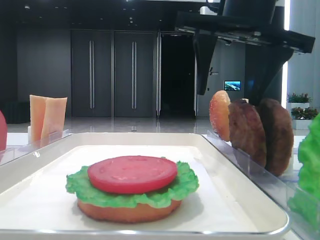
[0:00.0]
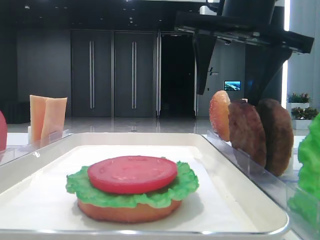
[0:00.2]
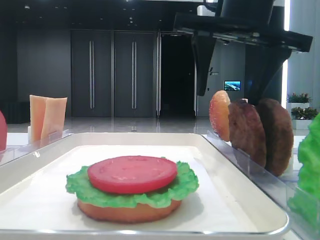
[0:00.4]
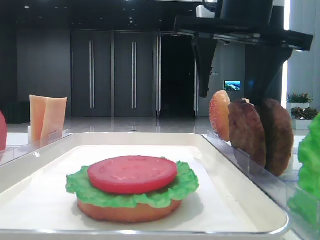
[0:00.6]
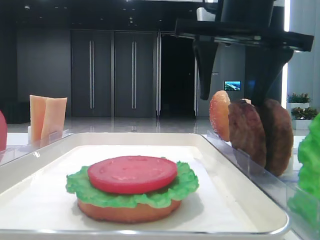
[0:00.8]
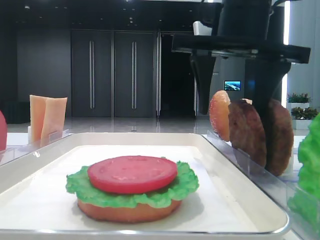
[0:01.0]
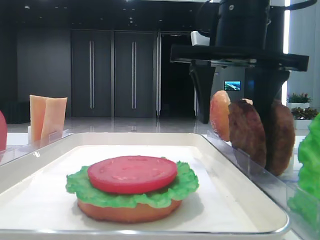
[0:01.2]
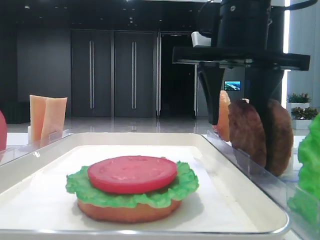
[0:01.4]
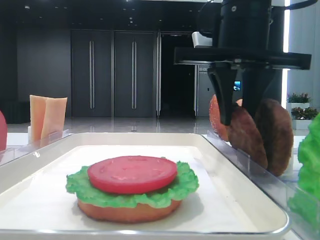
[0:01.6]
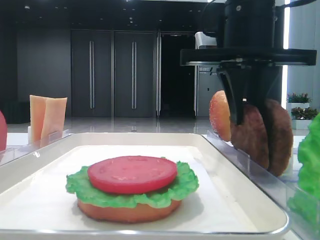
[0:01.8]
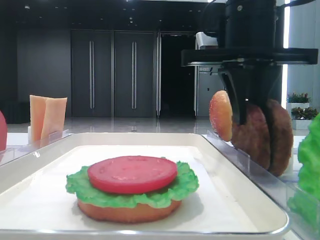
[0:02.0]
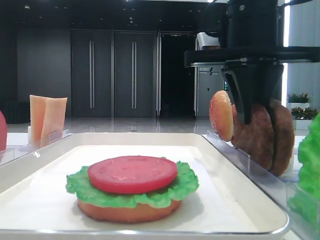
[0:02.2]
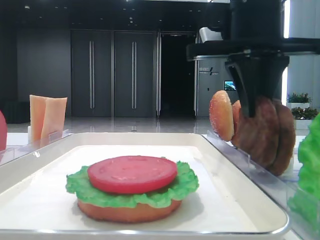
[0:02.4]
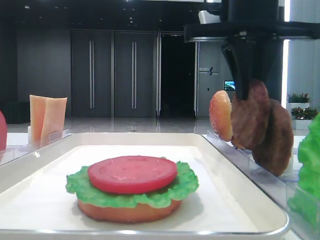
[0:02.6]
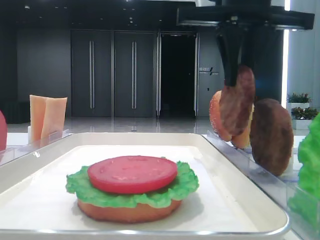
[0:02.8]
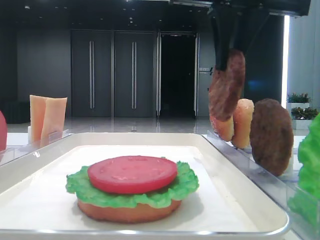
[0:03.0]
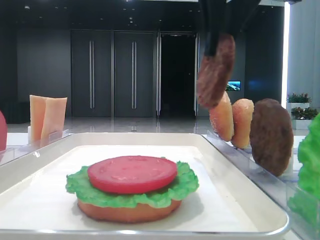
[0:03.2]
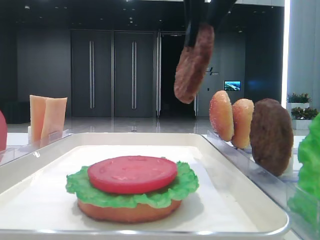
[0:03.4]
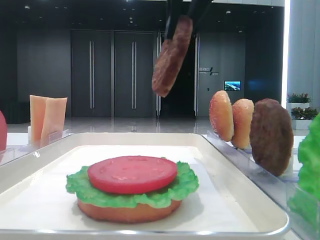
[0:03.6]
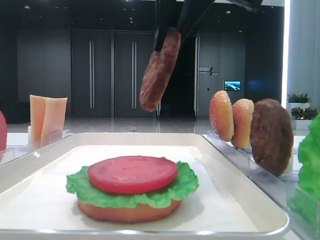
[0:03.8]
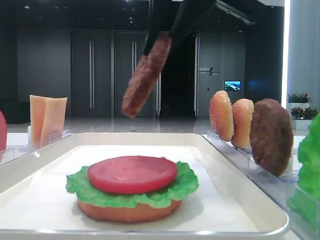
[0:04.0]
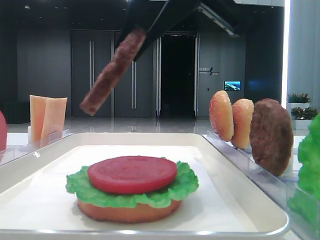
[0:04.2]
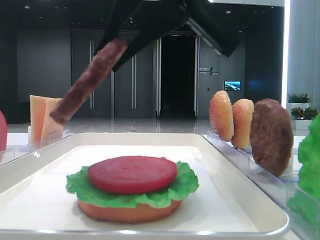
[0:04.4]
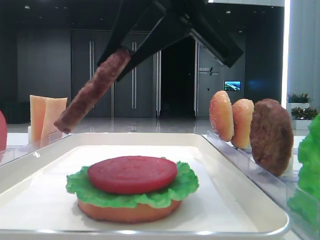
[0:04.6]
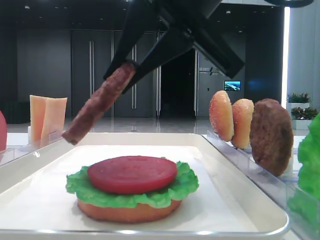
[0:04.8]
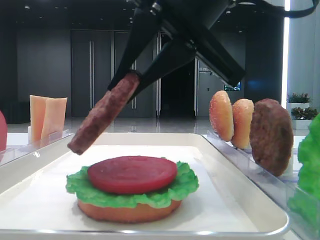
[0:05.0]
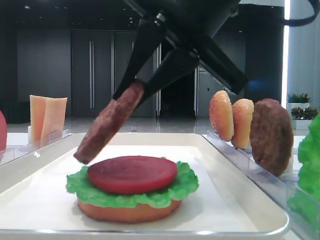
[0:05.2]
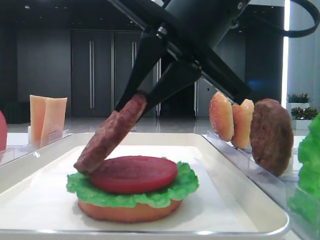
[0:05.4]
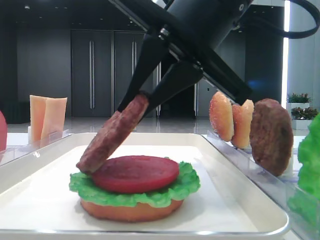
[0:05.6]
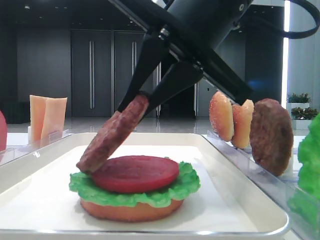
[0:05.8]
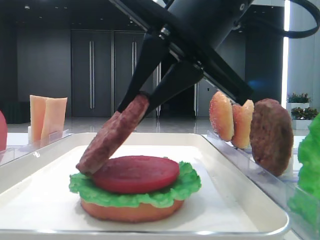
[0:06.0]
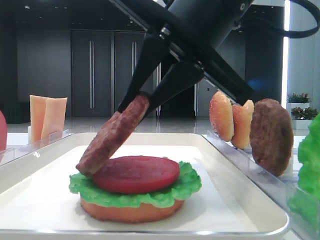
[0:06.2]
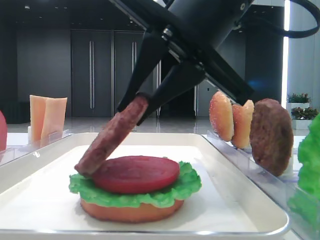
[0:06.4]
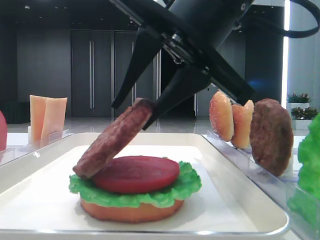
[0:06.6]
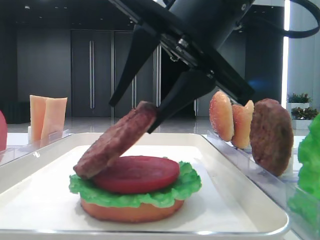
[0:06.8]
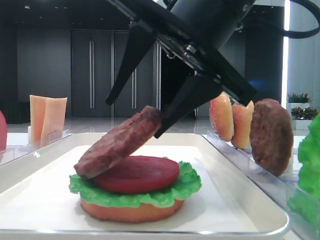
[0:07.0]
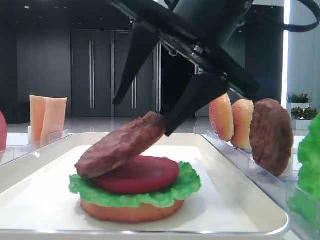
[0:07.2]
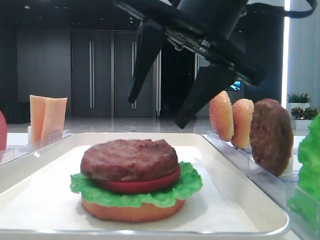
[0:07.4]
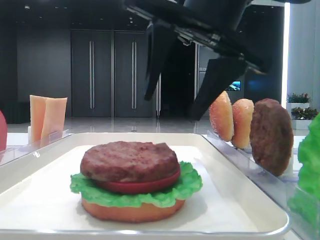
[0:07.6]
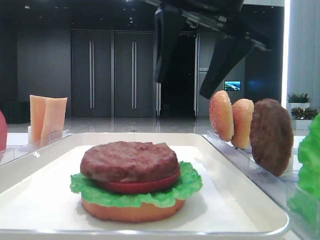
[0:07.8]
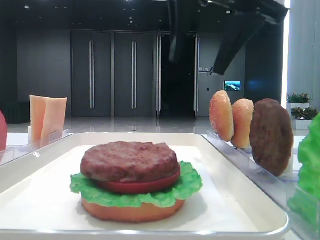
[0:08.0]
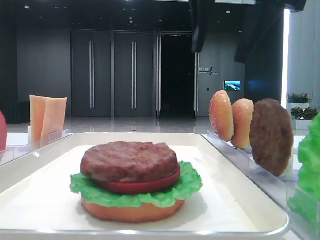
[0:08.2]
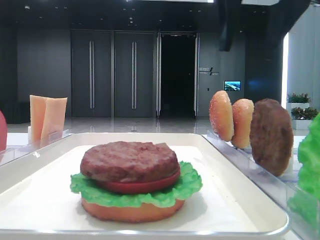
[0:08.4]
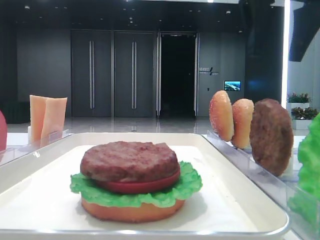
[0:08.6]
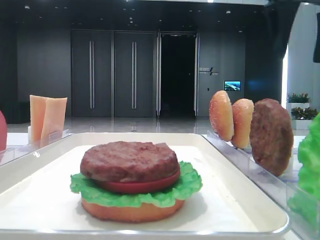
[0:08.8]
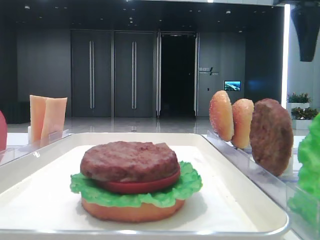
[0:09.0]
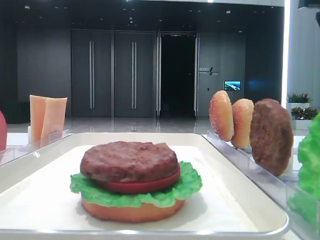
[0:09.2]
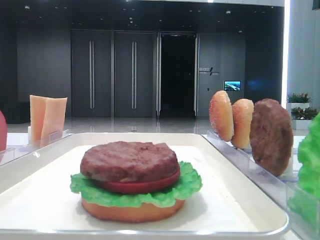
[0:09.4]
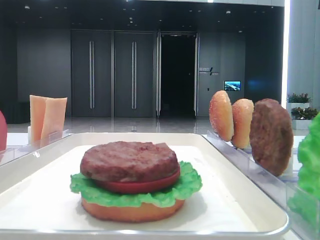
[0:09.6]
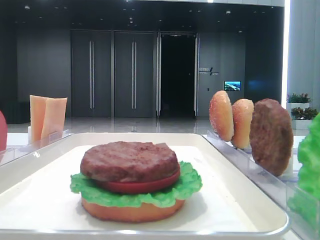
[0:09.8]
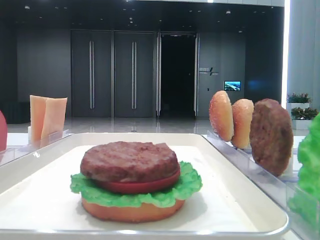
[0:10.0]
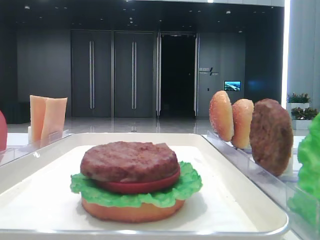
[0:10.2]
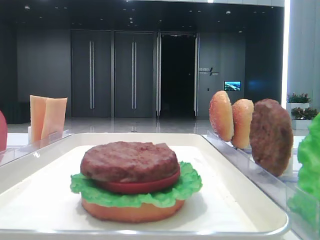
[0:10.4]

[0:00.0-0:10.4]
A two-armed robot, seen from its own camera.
Step, 0:00.0 to 0:02.0: Grab the patty with the right hand.
Step, 0:02.4 to 0:07.2: Place the patty on the tomato slice with the right hand.
0:00.0 to 0:01.4: The grippers stay close to where they were, moving slightly.
0:01.4 to 0:03.0: The right gripper goes roughly 5 cm upward, and closes up.
0:03.0 to 0:04.4: The right gripper travels backward and to the left by roughly 10 cm.
0:04.4 to 0:06.0: The right gripper shifts by about 5 cm.
0:06.0 to 0:07.4: The right gripper opens up.
0:07.4 to 0:09.0: The right gripper travels to the right, forward and upward by some 20 cm.
0:09.0 to 0:10.4: The right gripper goes approximately 10 cm backward and to the right.

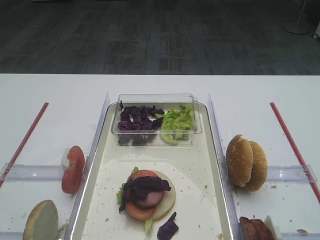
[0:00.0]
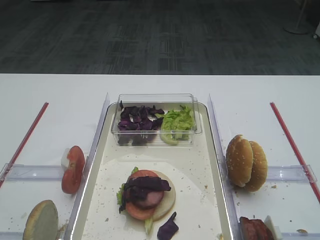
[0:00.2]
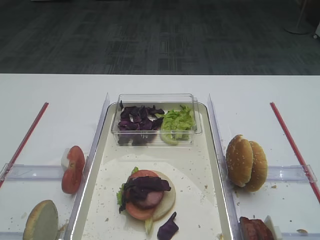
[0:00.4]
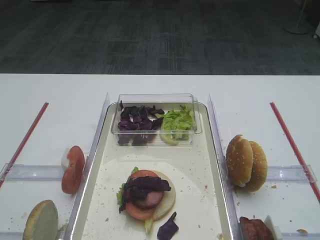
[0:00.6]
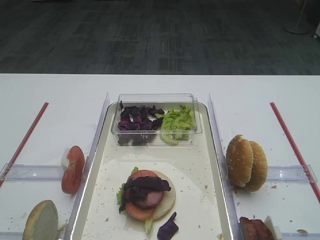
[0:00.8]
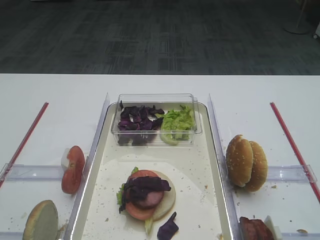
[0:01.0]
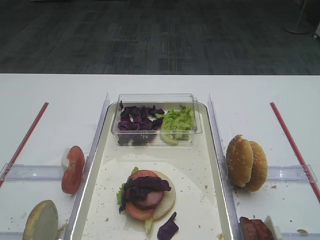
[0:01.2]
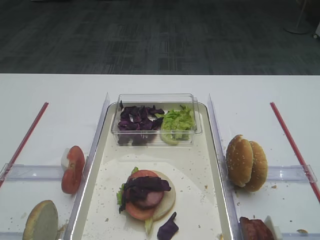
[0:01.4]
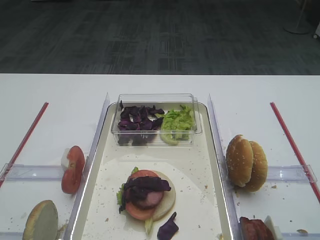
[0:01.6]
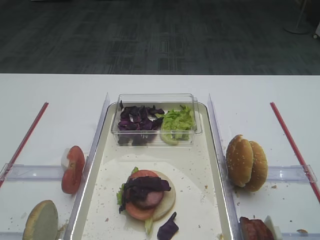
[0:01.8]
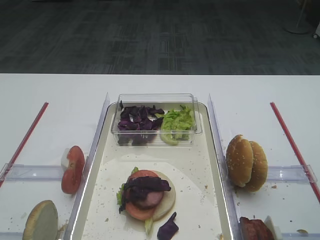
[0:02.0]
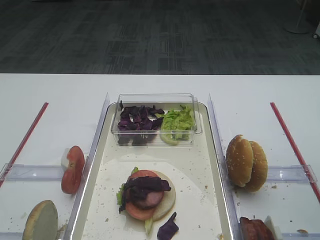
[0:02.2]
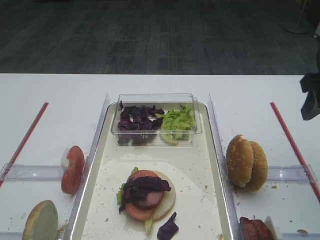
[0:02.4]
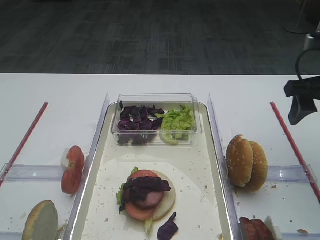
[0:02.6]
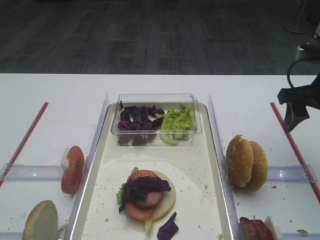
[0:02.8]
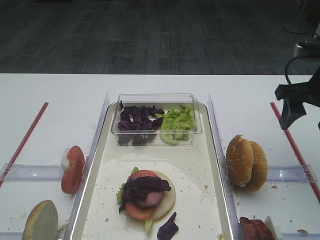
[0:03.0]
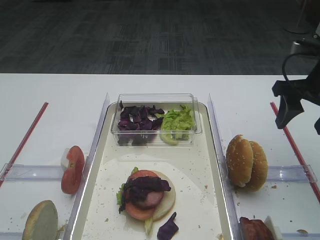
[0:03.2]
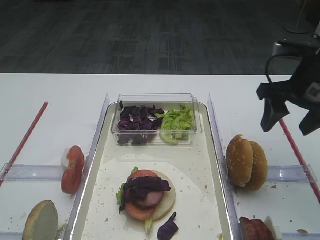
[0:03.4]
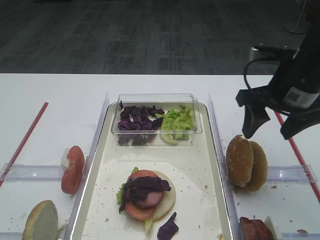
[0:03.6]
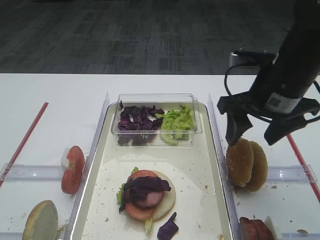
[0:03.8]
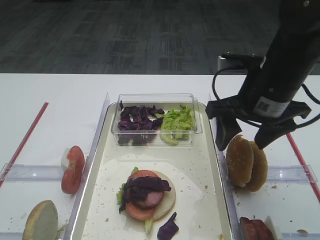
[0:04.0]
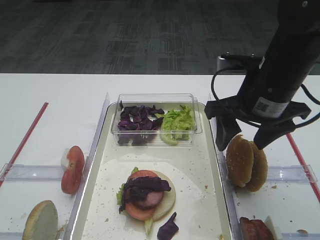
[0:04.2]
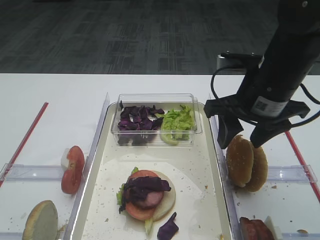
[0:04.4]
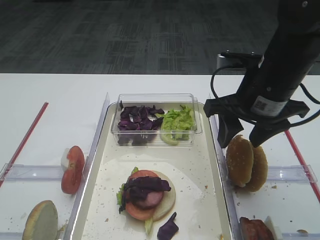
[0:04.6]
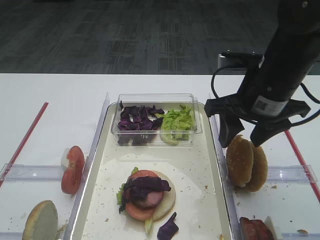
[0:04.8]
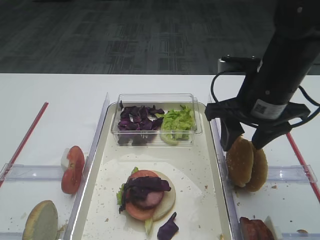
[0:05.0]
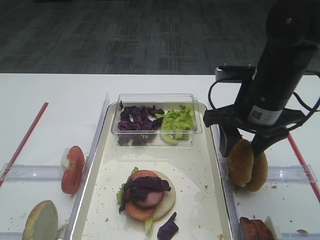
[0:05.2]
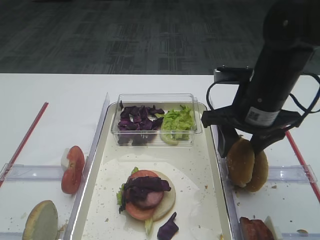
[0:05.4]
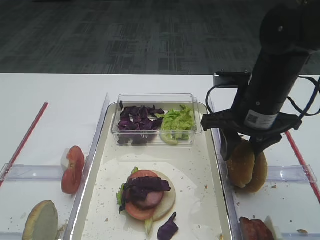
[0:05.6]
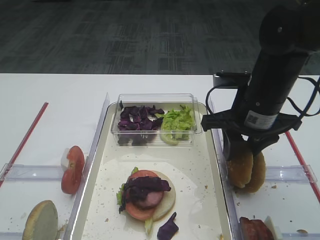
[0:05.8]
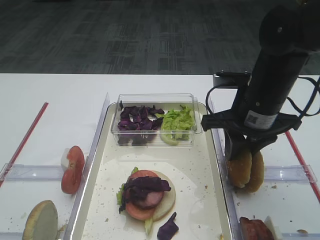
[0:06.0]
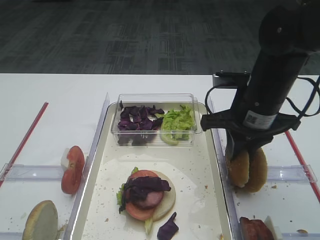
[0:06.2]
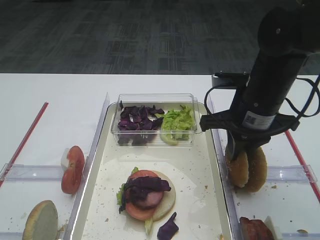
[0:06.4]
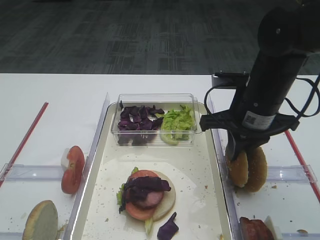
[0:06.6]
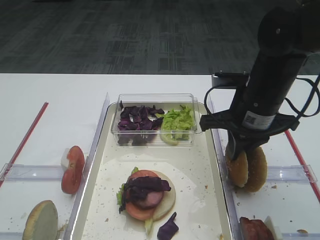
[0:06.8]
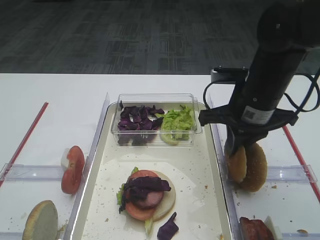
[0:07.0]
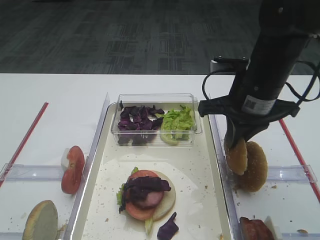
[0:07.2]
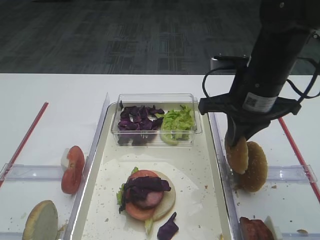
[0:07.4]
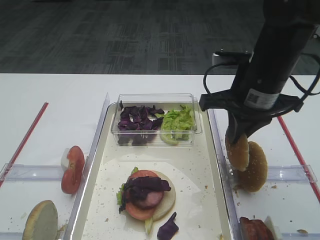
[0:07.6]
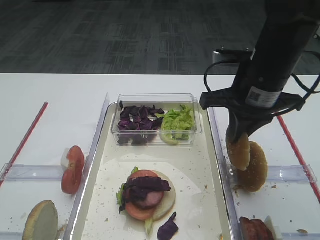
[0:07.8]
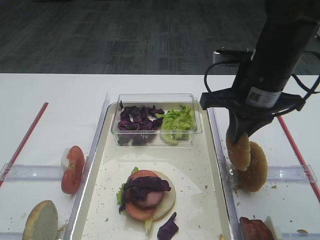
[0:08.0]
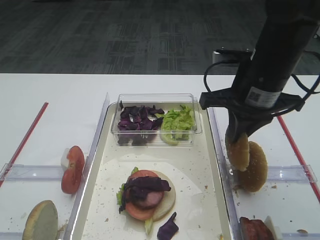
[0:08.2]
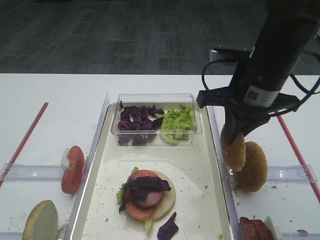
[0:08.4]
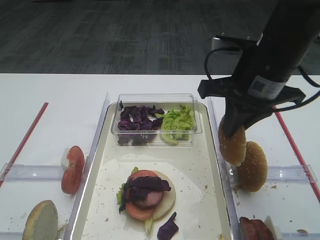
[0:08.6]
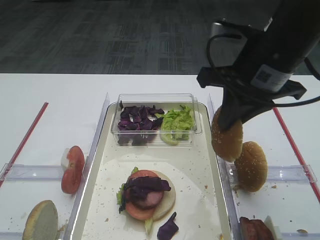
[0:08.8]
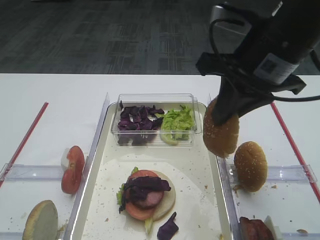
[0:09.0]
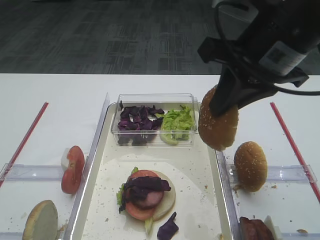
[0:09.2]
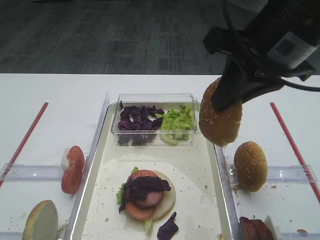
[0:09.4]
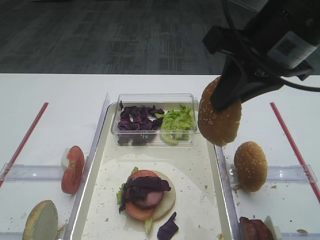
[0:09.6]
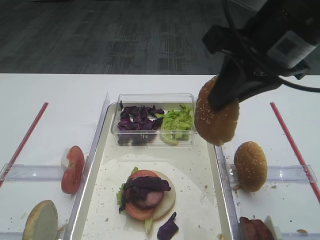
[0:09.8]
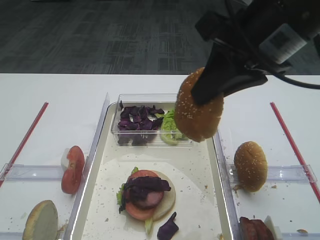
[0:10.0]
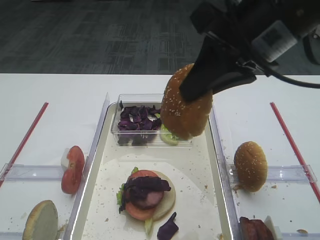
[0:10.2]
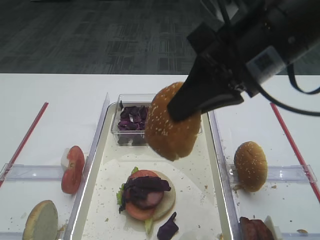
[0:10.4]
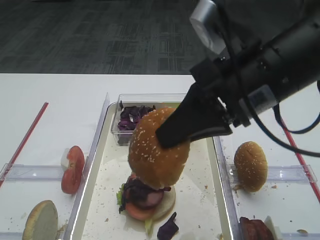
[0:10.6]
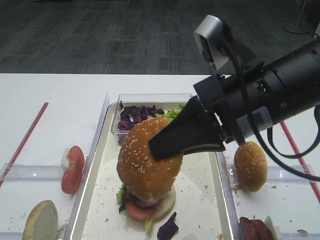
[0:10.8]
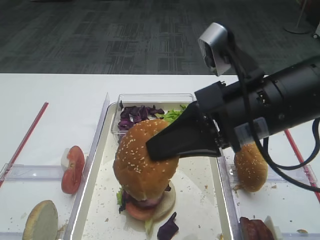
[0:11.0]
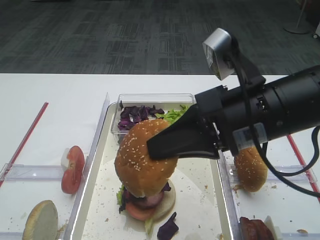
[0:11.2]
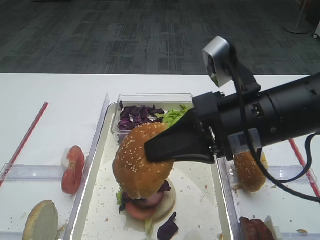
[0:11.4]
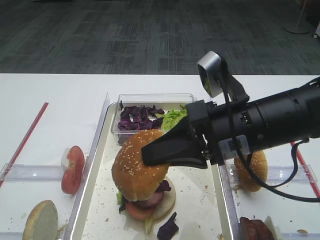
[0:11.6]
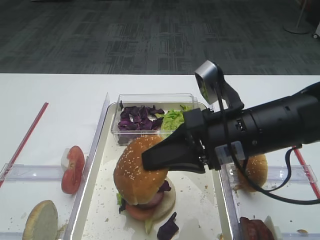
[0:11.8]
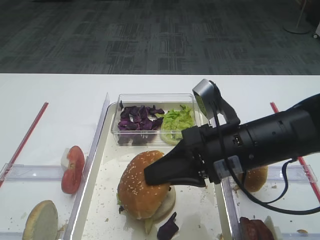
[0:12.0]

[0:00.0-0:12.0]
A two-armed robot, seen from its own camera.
Step, 0:00.0 to 0:07.4: Pick up the hamburger lid with the right gripper.
0:01.6 to 0:03.0: The right gripper moves forward, roughly 25 cm.
0:03.0 to 0:04.4: The right gripper travels to the left by some 10 cm.
0:04.4 to 0:06.0: The right gripper closes up.
0:06.0 to 0:07.6: The right gripper closes.
0:07.6 to 0:09.0: The right gripper travels upward by about 5 cm.
0:10.4 to 0:12.0: The right gripper travels downward by some 15 cm.
